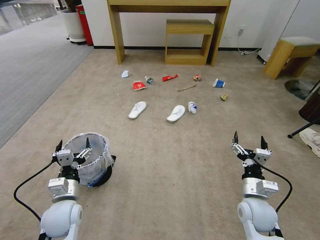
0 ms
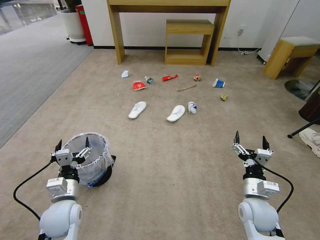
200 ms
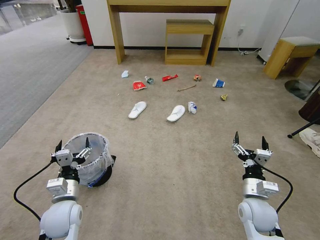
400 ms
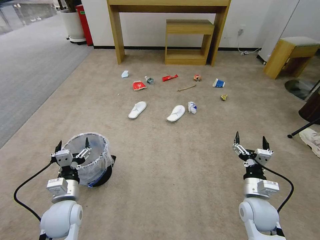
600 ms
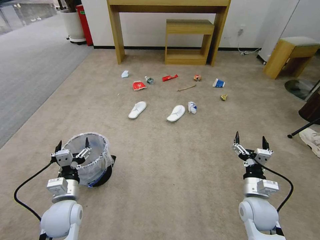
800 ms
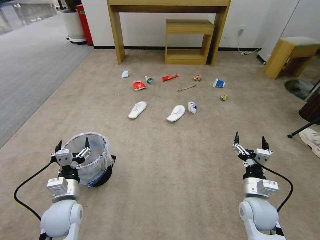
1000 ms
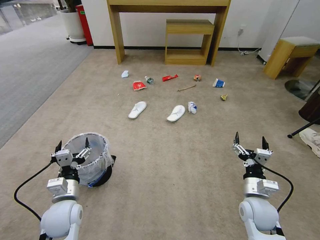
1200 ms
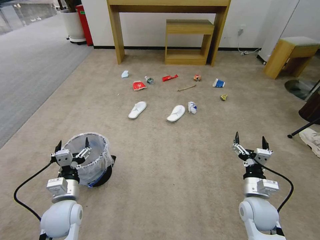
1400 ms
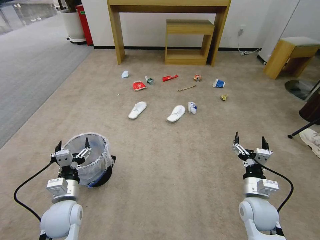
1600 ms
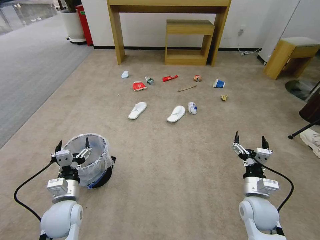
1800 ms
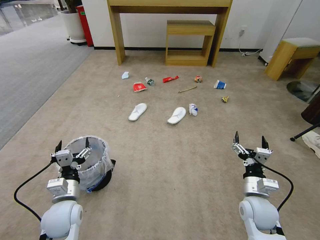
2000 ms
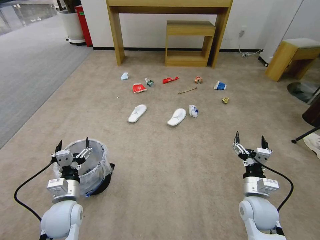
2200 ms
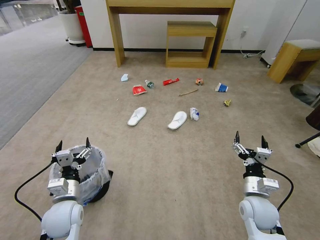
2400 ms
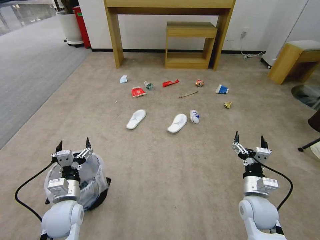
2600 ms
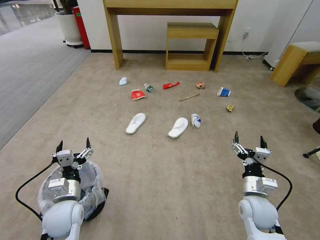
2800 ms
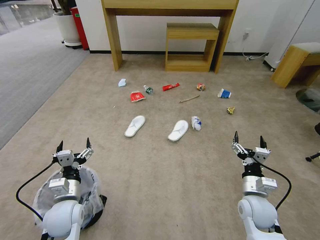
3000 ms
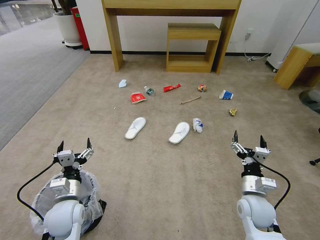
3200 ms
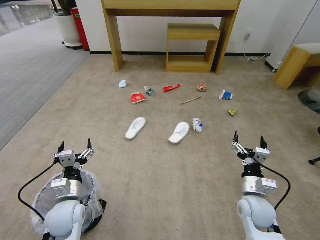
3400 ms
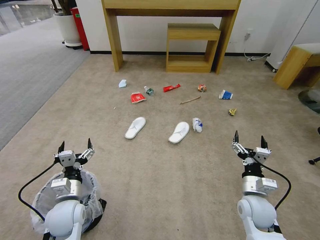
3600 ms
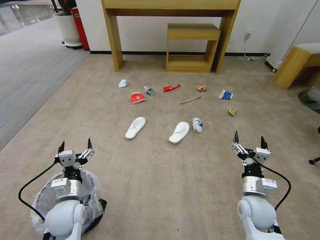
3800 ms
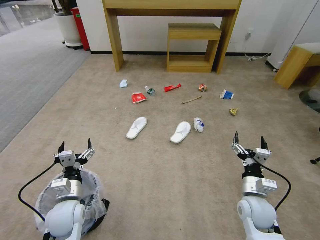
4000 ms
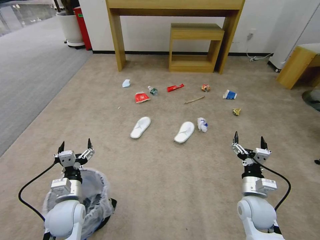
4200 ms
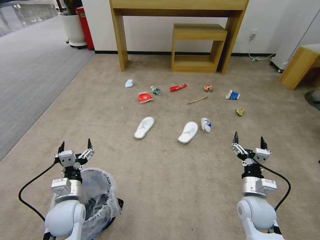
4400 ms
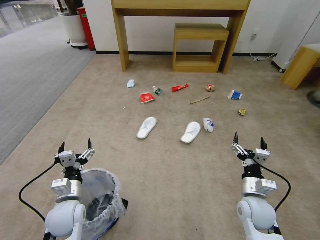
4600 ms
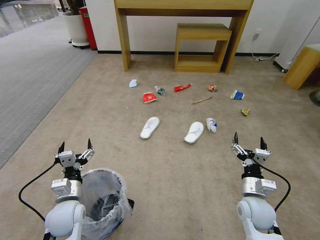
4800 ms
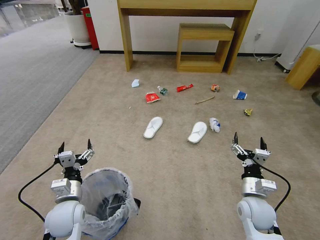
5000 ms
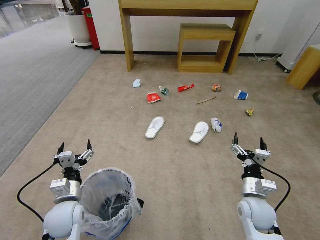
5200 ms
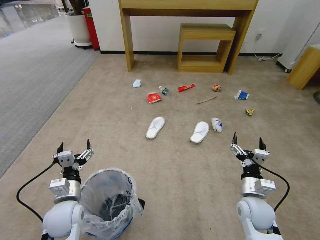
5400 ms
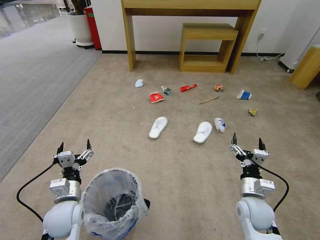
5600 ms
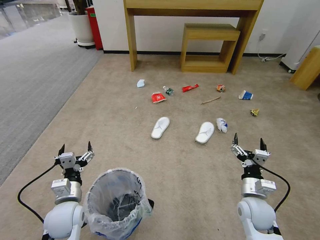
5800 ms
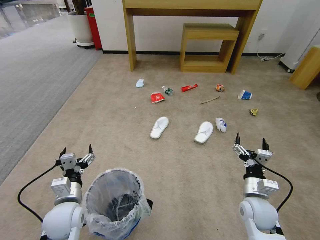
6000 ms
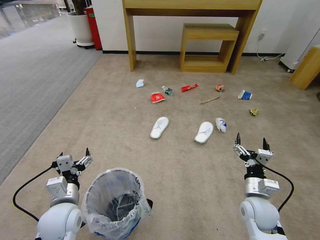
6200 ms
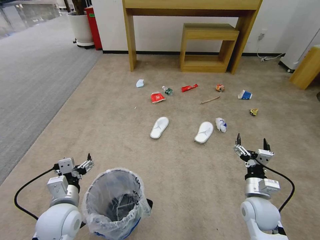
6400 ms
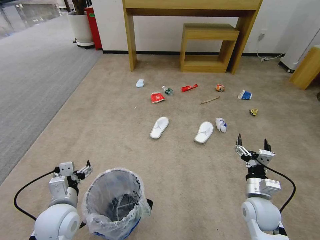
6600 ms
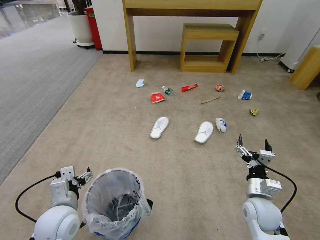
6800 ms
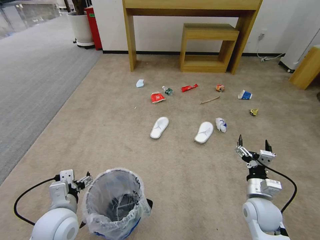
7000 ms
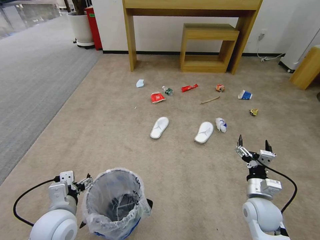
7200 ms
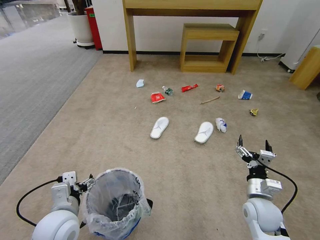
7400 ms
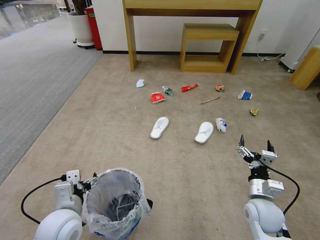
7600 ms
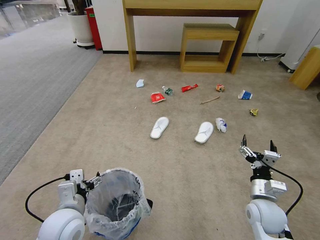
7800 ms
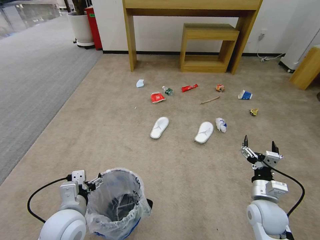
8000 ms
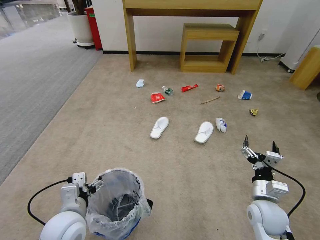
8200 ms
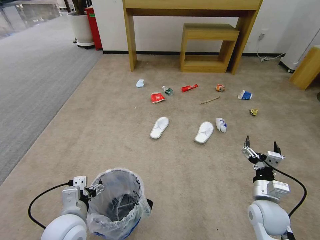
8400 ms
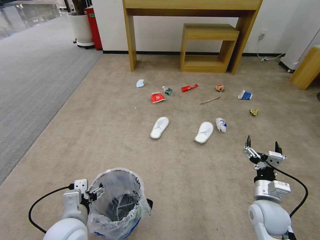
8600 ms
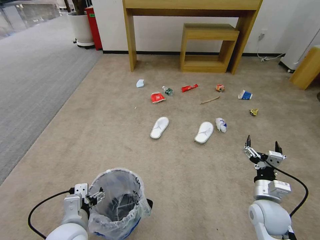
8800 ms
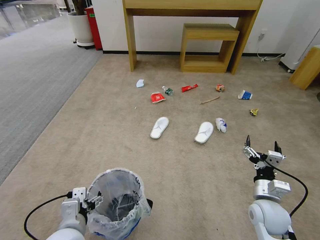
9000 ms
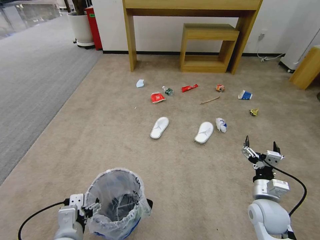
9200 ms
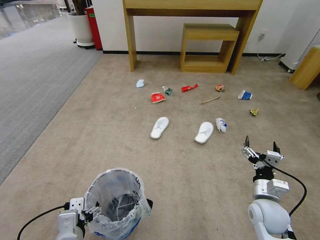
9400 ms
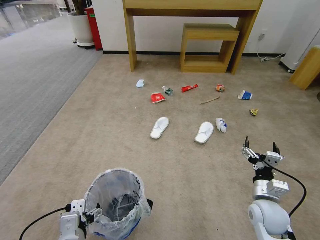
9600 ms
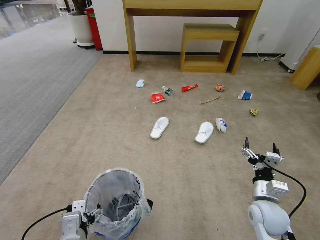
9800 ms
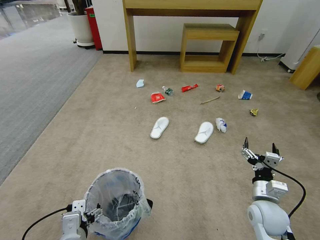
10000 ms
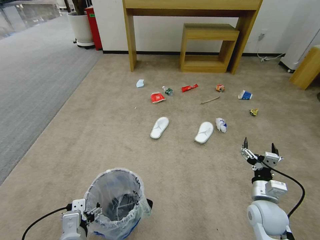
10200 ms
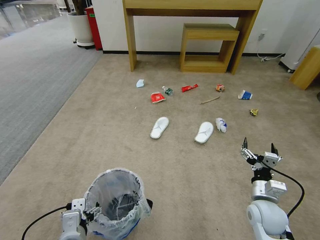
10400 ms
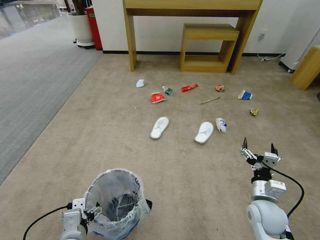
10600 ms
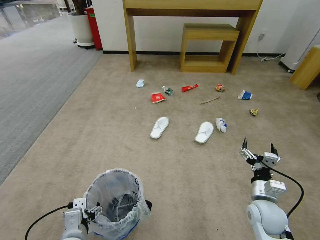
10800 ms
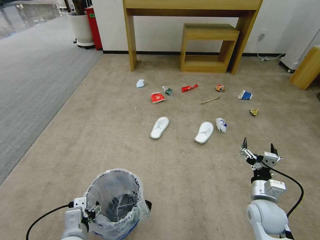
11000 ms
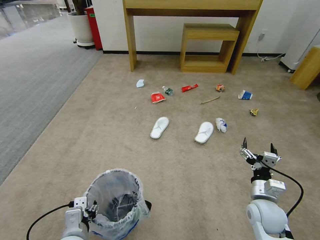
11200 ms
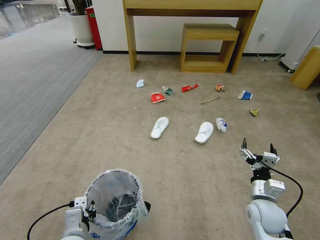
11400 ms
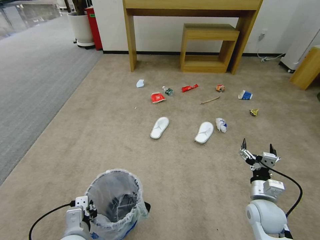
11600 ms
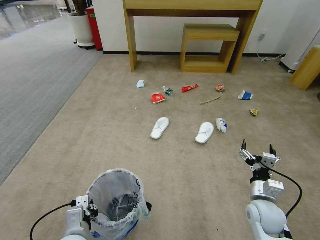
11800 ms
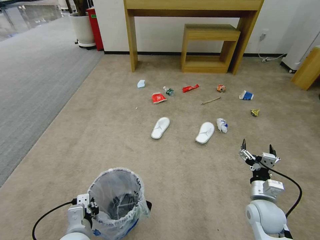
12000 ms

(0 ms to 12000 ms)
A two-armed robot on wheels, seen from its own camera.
Task of the whole recording: Pick up the trash bin and place the garbage on the floor into it.
3000 ms - 4400 ms: Both grippers stay about where they are.
4400 ms - 6000 ms: The grippers move only a little.
6000 ms - 7600 ms: The left gripper ends up approximately 5 cm from where it was.
7600 ms - 9000 ms: There are only small adjustments of the grippers.
9000 ms - 10400 ms: There are only small adjustments of the grippers.
10400 ms - 12000 ms: The left gripper closes its fingers.

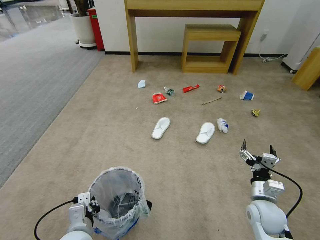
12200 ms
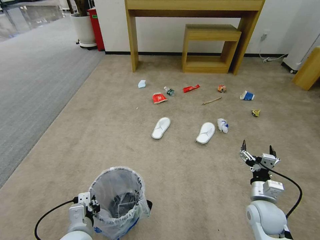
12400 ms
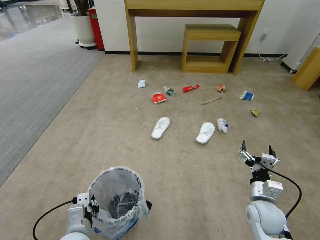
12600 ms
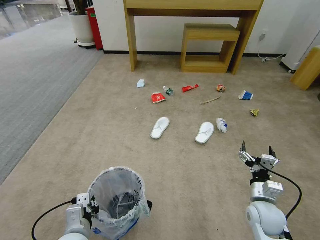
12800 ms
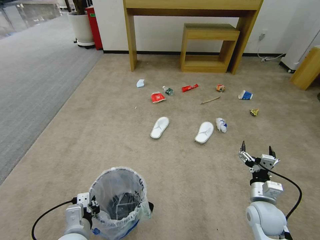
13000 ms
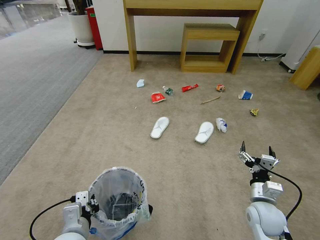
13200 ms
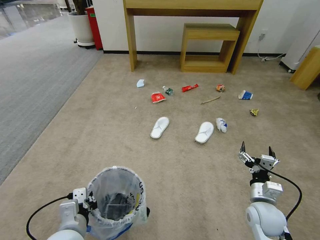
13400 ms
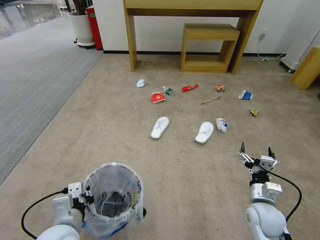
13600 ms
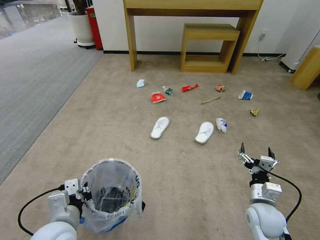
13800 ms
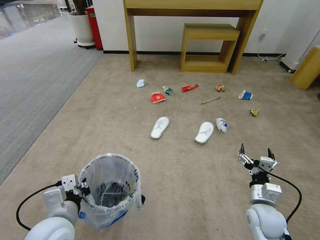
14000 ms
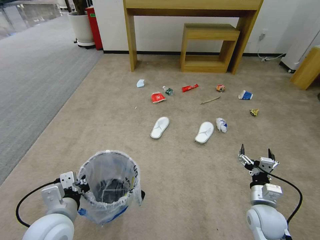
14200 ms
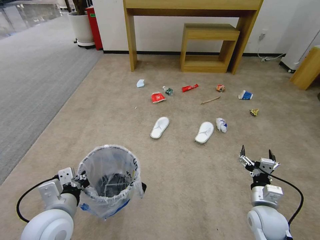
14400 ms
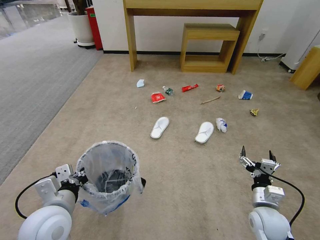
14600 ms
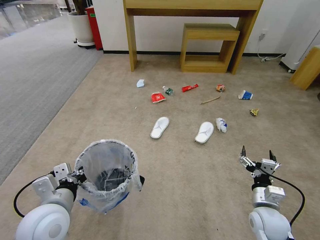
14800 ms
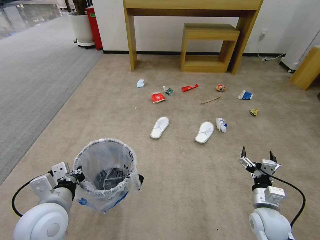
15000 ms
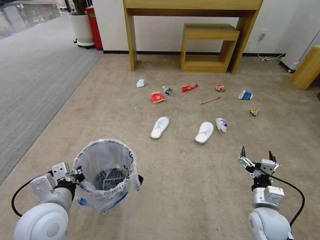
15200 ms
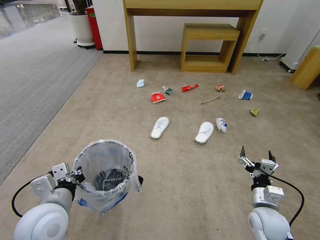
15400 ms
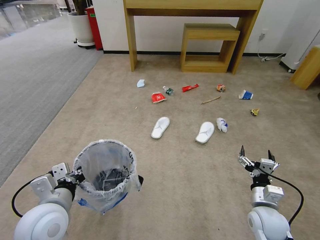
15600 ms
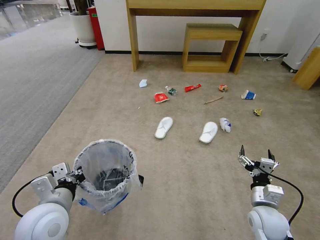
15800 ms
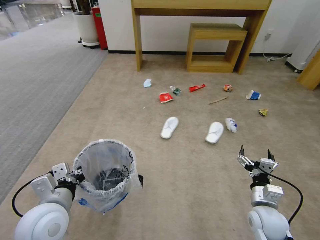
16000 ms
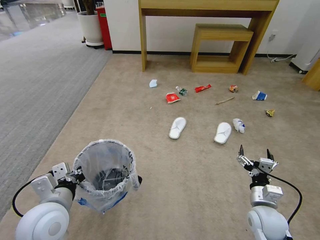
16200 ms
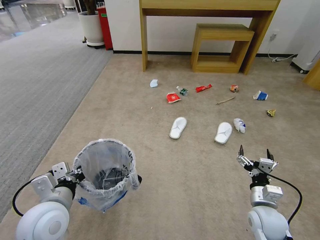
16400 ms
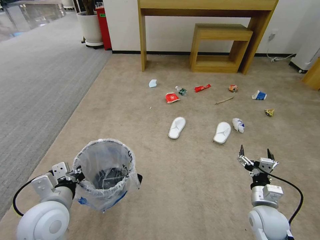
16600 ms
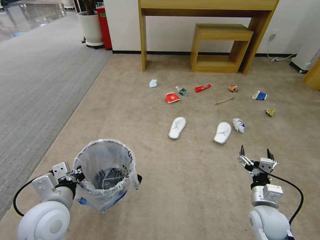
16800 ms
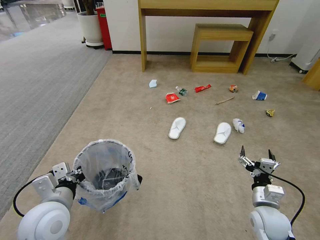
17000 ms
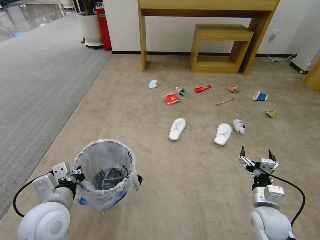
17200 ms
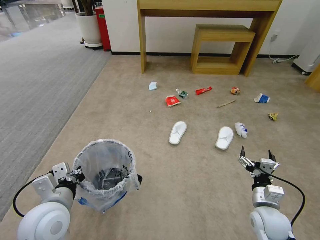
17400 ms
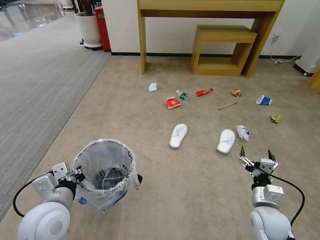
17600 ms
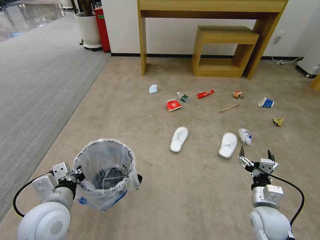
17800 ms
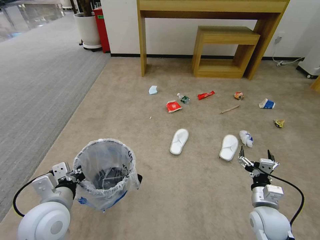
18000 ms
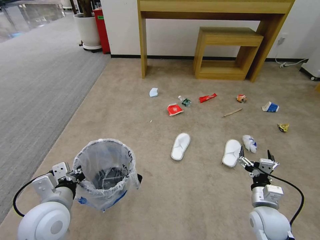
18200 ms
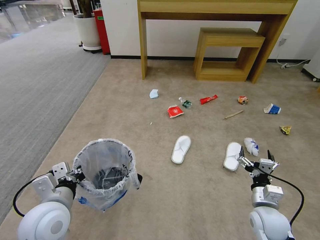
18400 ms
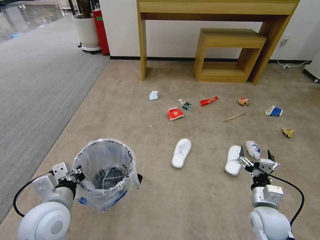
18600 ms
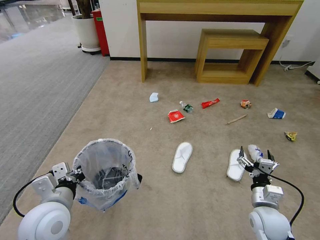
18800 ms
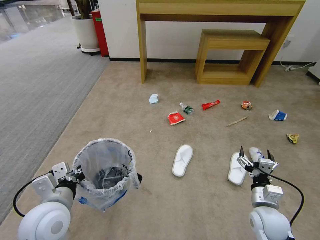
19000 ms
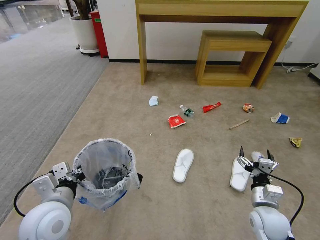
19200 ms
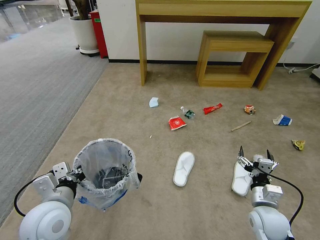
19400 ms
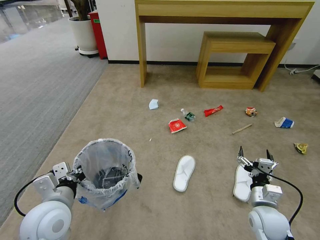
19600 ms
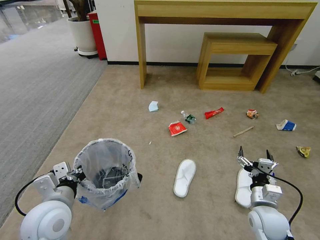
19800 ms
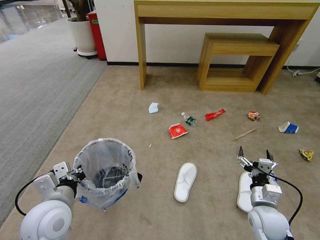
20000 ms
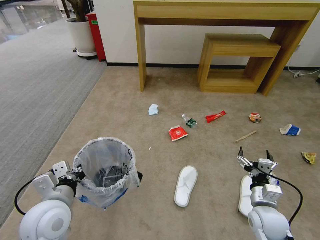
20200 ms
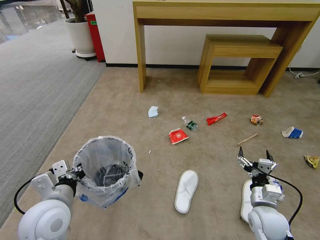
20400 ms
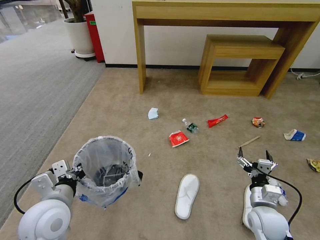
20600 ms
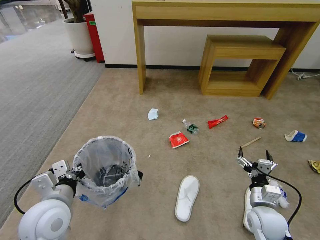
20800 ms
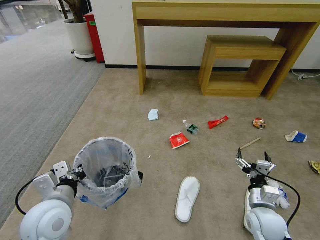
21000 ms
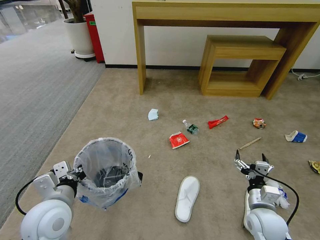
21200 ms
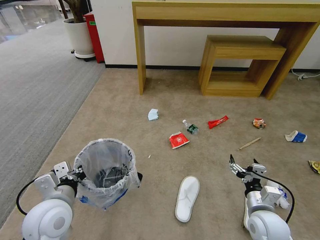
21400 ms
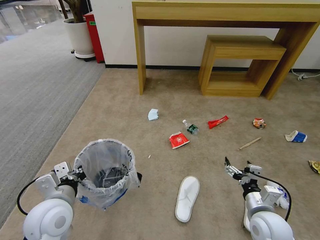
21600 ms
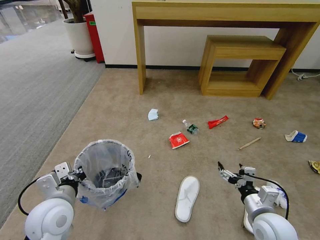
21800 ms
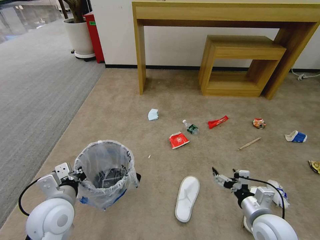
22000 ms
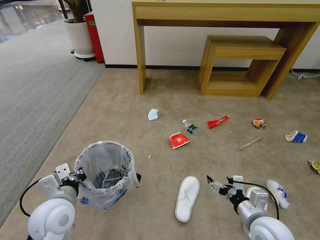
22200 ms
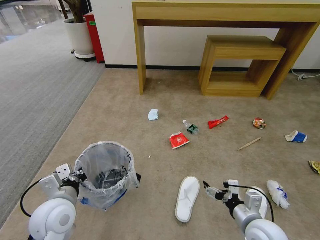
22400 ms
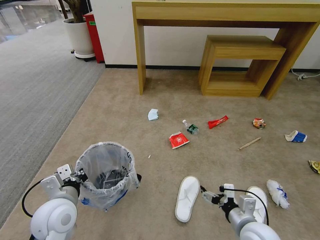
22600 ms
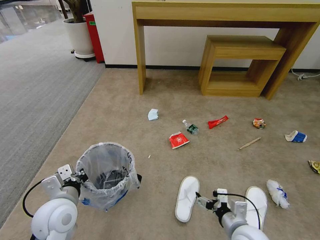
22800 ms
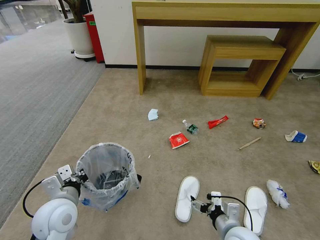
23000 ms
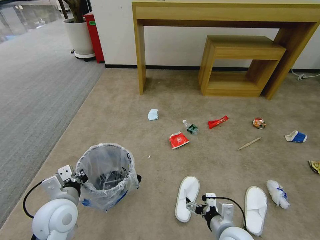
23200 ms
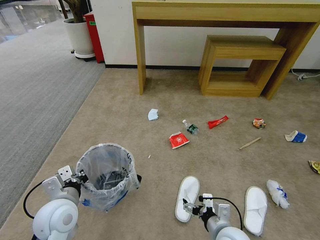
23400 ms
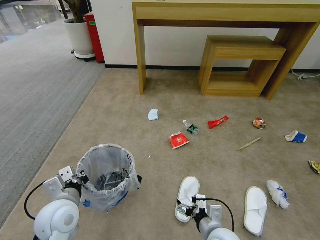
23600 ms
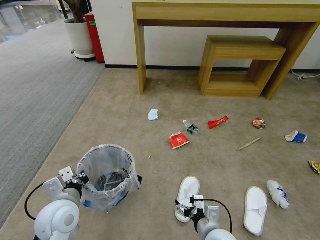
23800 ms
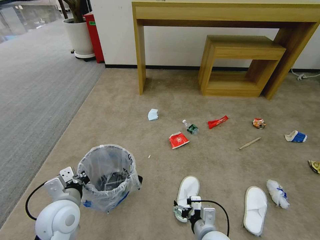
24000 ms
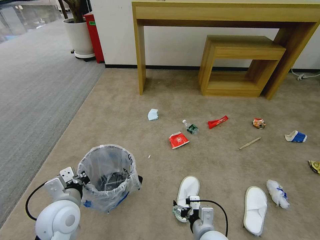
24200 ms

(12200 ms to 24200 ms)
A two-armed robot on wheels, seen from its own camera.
Task of the whole recording: Pick up the trash bin and place the garbage on the floor into it.
12200 ms - 13800 ms: The left gripper heads upward, covering some 5 cm.
13800 ms - 15200 ms: The left gripper moves some 5 cm.
15200 ms - 18200 ms: Both grippers stay about where they are.
19800 ms - 21200 ms: The grippers move only a little.
21200 ms - 22600 ms: The right gripper moves to the left, approximately 5 cm.
22600 ms - 24200 ms: The right gripper travels to the left by approximately 10 cm.
